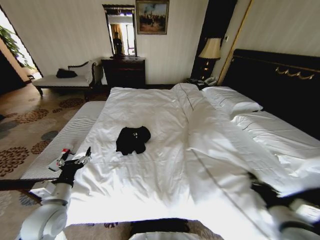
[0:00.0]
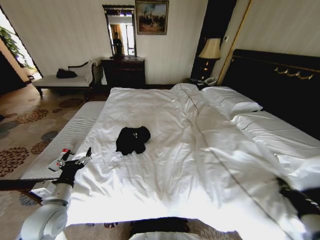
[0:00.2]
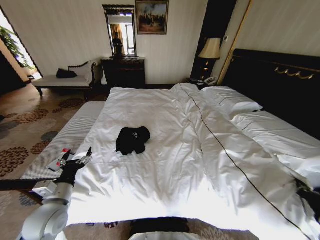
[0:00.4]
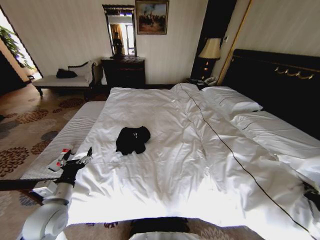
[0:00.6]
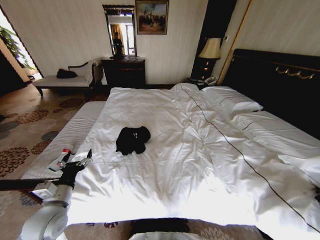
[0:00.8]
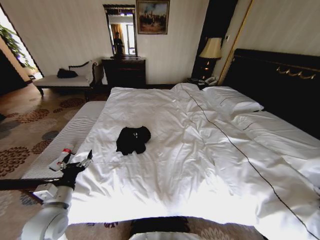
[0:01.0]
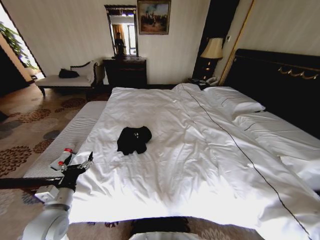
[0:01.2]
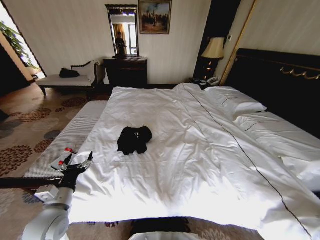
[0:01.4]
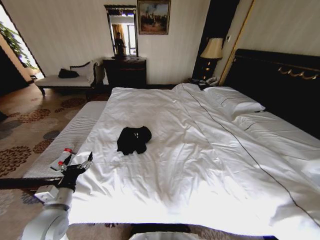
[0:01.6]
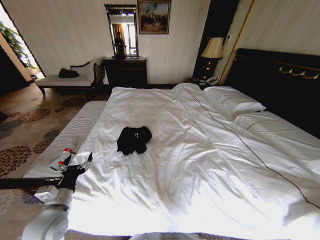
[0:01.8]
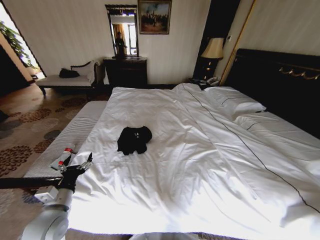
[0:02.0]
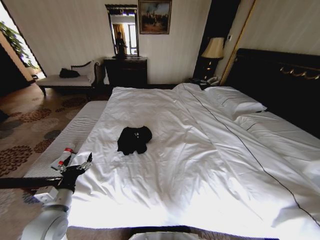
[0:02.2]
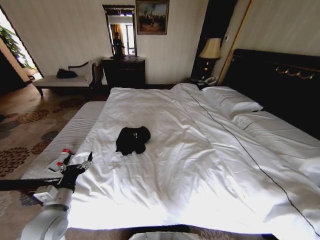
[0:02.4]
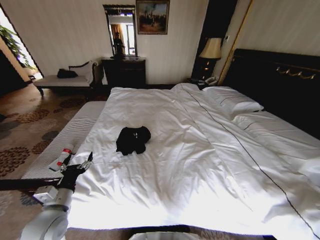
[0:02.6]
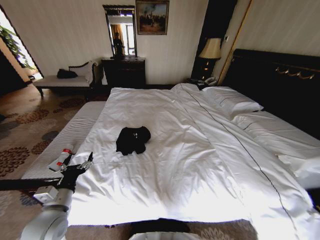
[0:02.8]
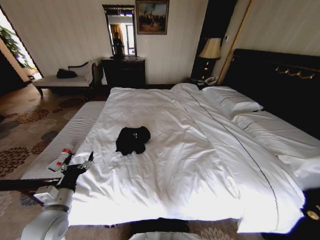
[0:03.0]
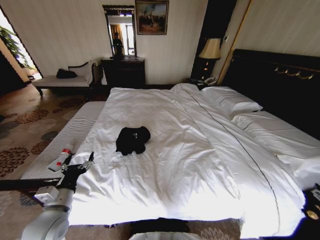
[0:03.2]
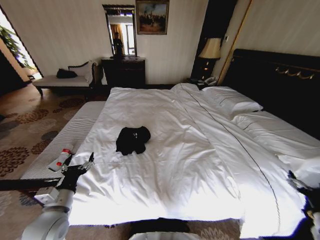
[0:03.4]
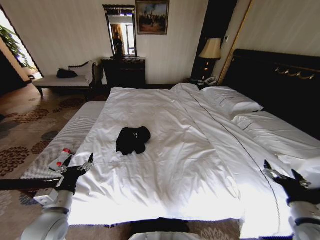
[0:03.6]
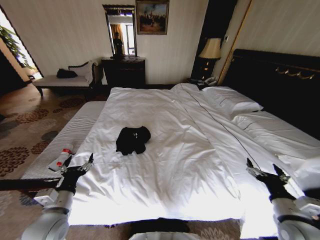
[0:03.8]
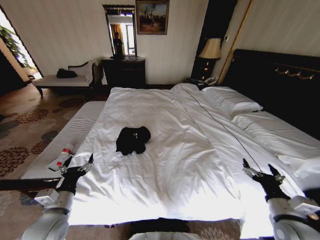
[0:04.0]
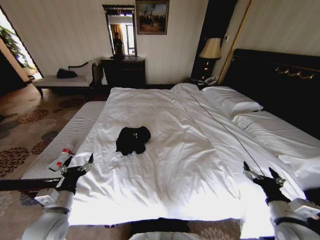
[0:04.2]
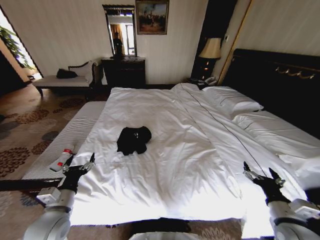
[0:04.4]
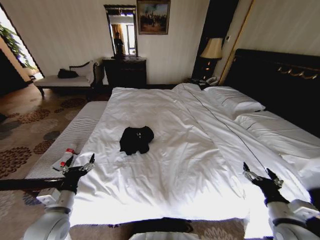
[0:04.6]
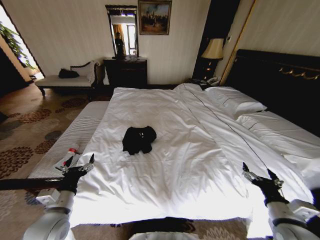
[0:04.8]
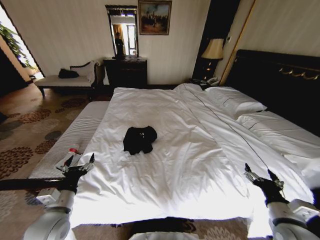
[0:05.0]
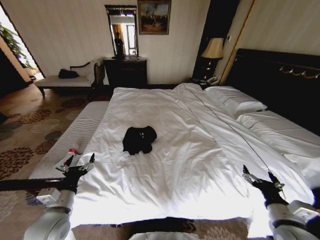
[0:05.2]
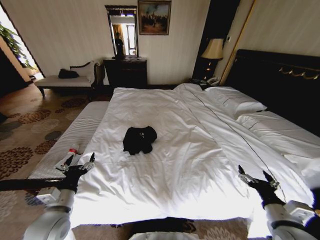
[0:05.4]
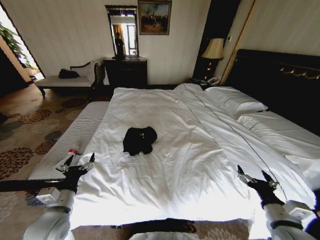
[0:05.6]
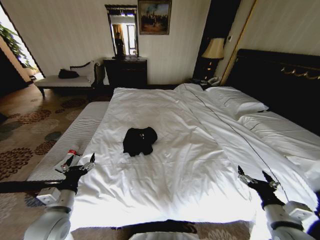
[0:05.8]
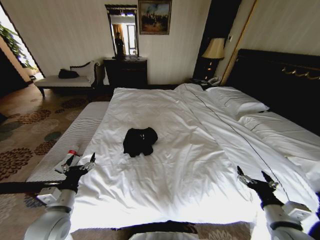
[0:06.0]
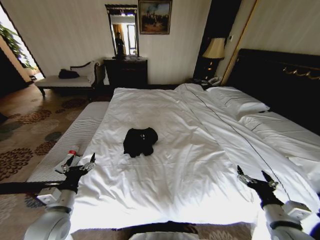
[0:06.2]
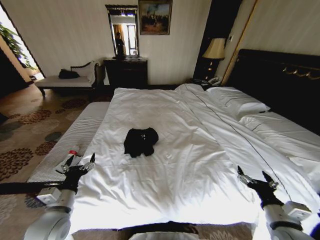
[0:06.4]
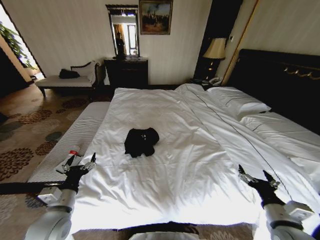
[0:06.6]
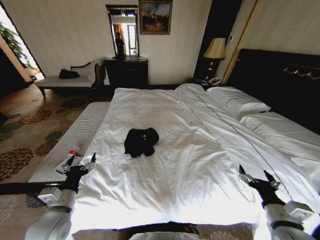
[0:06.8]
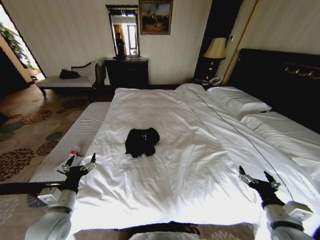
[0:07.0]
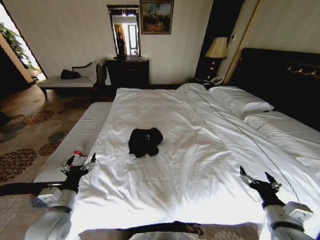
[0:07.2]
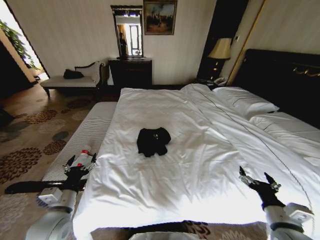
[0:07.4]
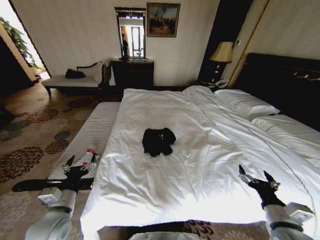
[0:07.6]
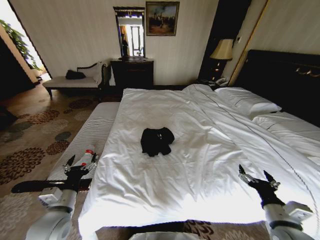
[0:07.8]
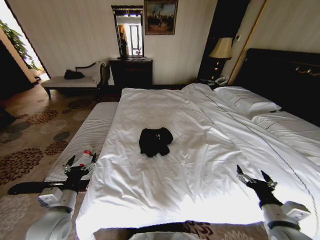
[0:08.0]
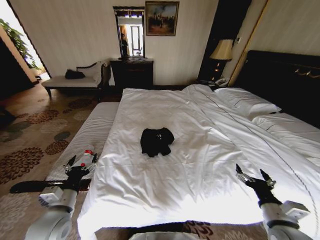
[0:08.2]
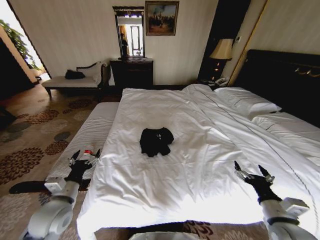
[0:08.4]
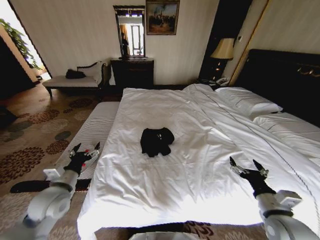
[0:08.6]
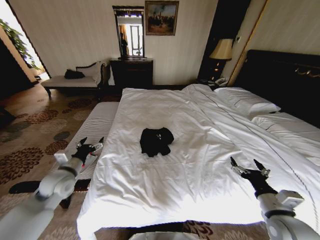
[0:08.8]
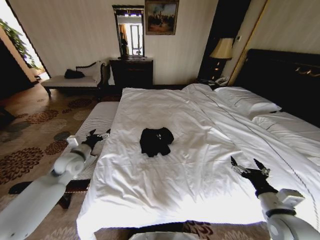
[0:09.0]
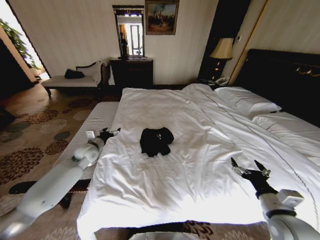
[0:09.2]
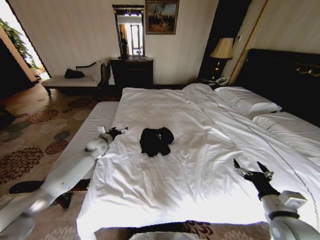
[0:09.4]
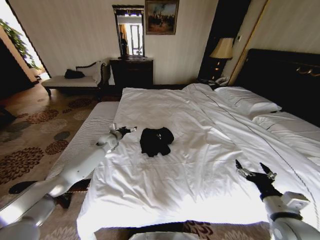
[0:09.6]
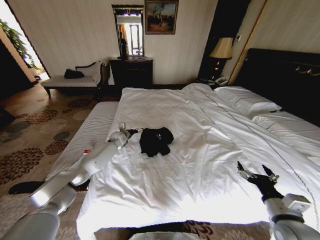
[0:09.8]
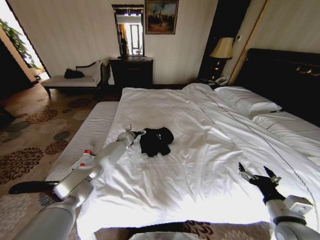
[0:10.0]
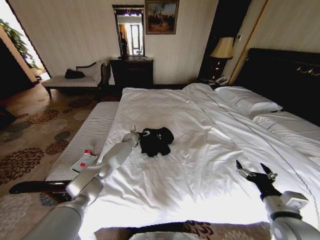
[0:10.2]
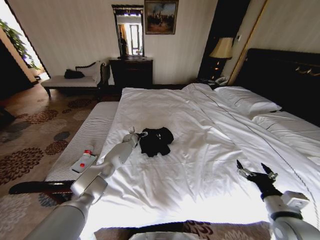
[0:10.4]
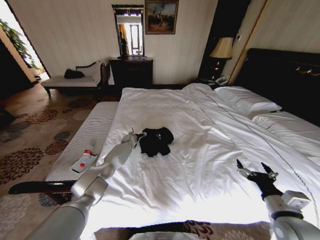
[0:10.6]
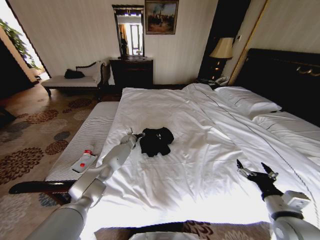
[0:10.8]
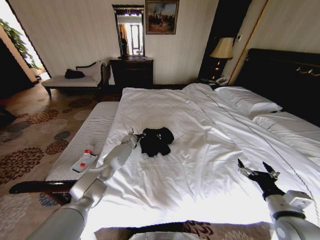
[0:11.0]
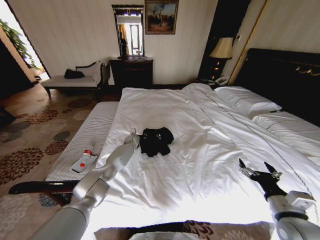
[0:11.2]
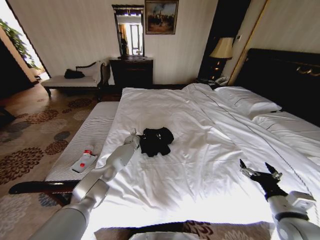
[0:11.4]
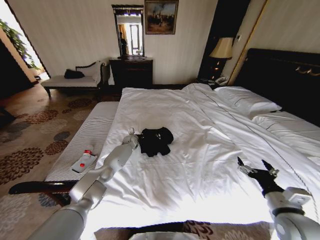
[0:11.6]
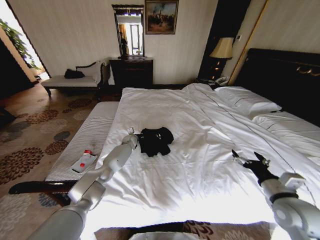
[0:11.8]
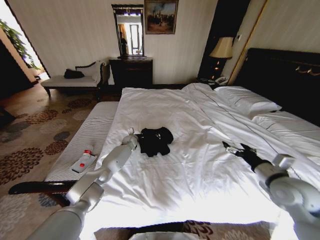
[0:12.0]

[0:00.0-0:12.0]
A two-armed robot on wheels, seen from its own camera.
Task of the whole recording: Fold the clothes on the bed.
0:00.0 to 0:01.6: The right gripper is displaced to the right by some 30 cm.
0:01.6 to 0:03.0: The right gripper opens its fingers.
0:03.0 to 0:04.4: The right gripper is displaced to the left by approximately 25 cm.
0:07.6 to 0:09.0: The left gripper heads forward, covering some 20 cm.
0:09.0 to 0:10.4: The left gripper is displaced forward, to the right and downward by some 35 cm.
0:10.4 to 0:12.0: The left gripper closes; the right gripper is displaced forward and upward by some 10 cm.

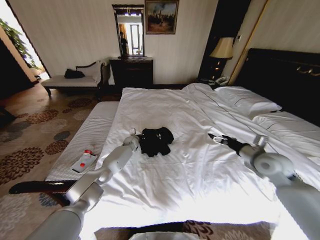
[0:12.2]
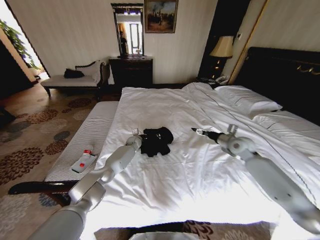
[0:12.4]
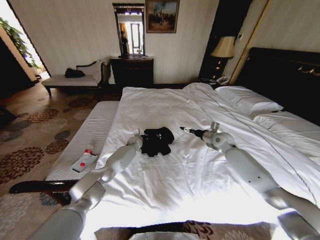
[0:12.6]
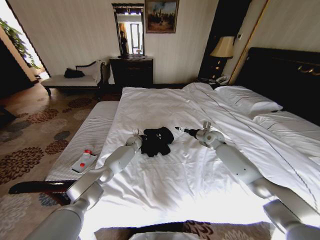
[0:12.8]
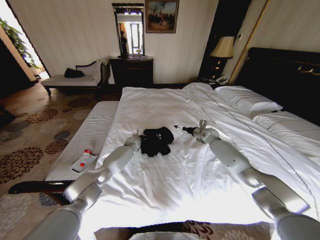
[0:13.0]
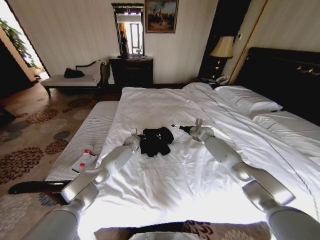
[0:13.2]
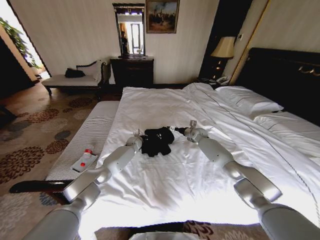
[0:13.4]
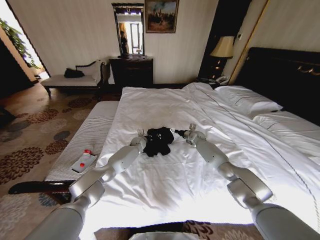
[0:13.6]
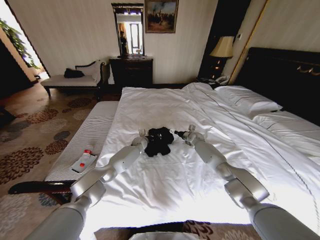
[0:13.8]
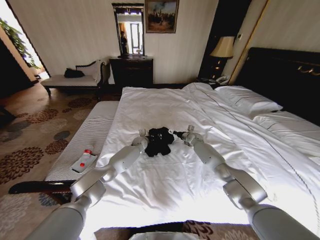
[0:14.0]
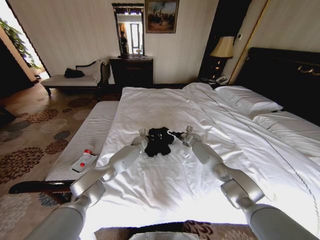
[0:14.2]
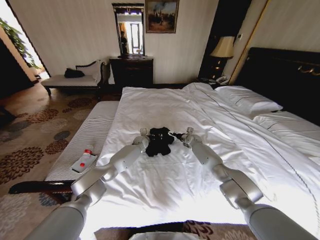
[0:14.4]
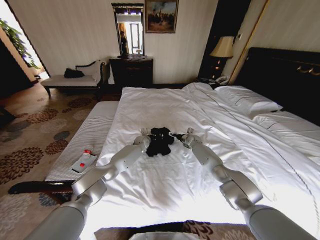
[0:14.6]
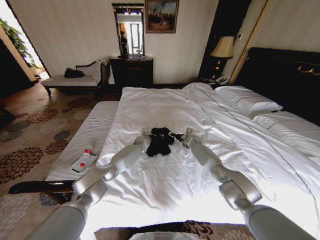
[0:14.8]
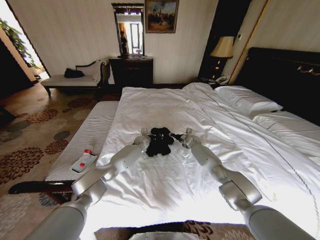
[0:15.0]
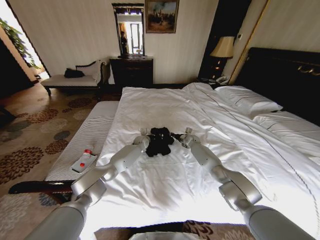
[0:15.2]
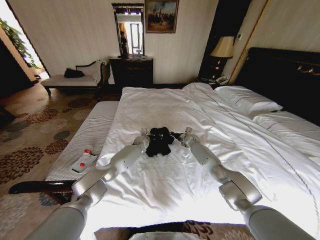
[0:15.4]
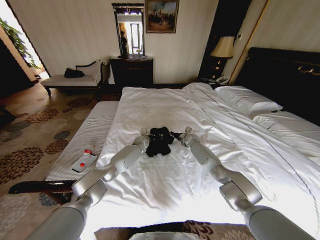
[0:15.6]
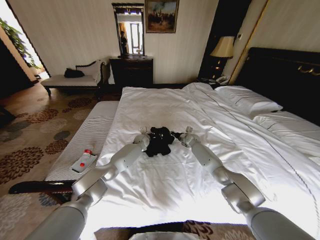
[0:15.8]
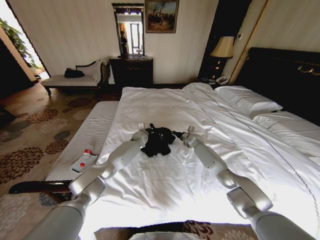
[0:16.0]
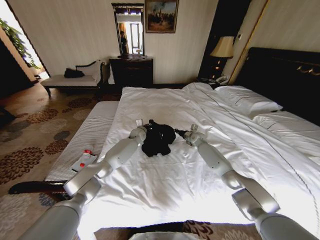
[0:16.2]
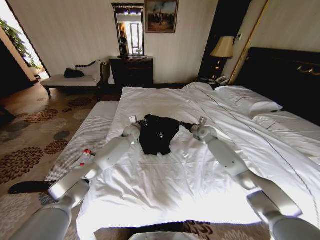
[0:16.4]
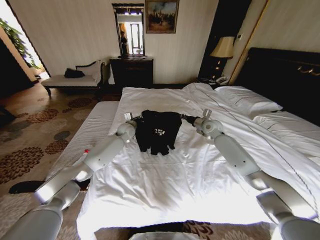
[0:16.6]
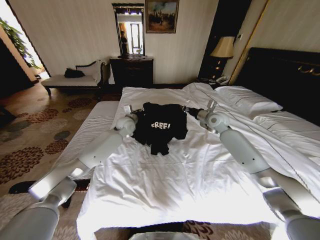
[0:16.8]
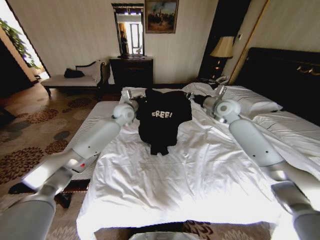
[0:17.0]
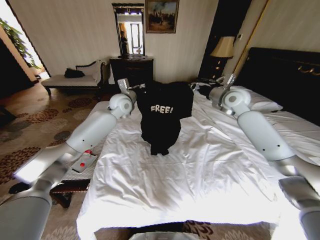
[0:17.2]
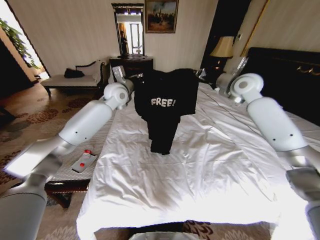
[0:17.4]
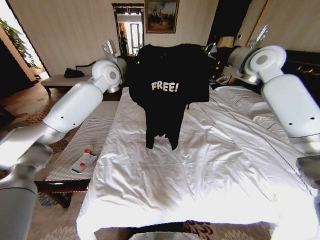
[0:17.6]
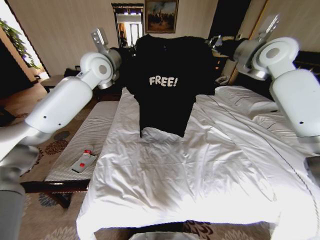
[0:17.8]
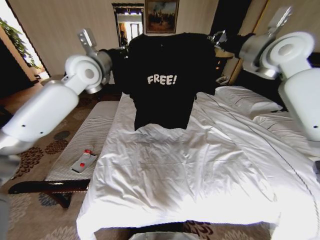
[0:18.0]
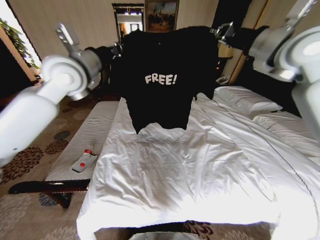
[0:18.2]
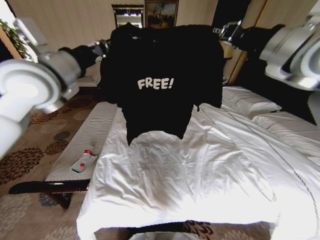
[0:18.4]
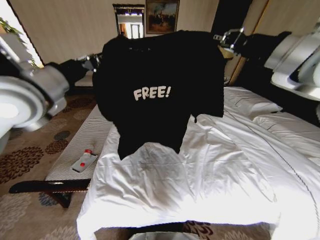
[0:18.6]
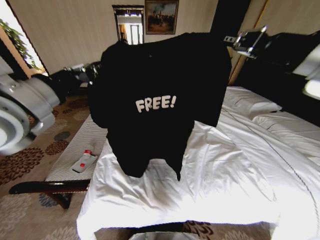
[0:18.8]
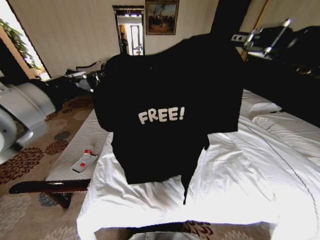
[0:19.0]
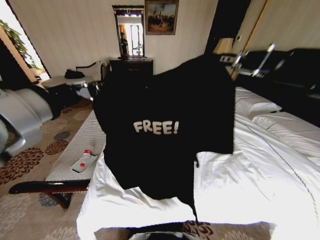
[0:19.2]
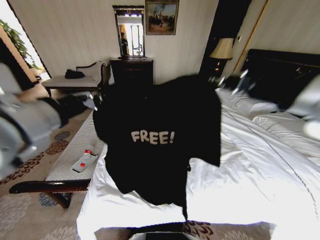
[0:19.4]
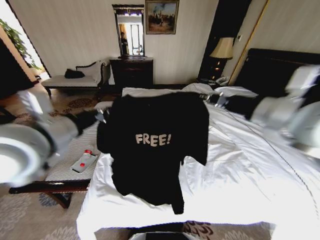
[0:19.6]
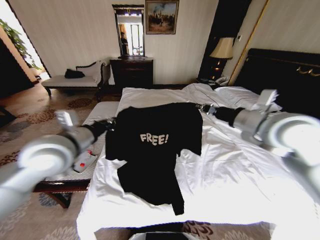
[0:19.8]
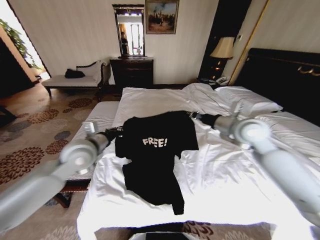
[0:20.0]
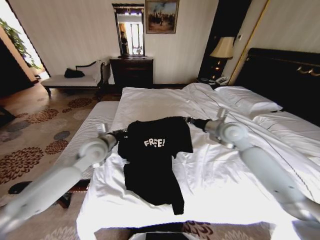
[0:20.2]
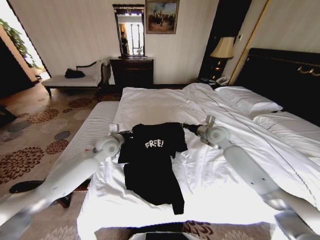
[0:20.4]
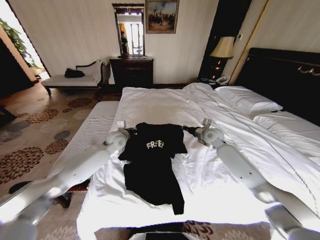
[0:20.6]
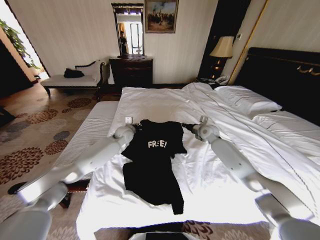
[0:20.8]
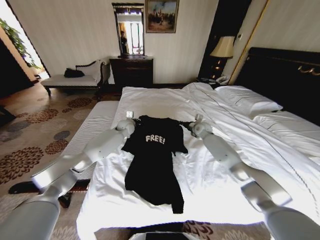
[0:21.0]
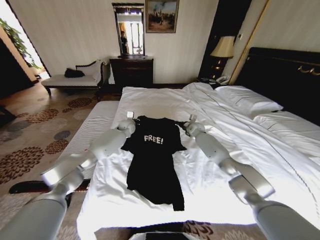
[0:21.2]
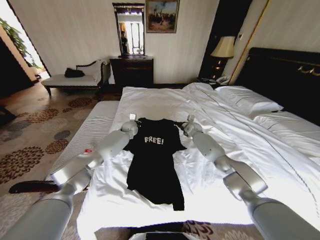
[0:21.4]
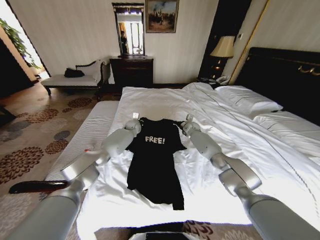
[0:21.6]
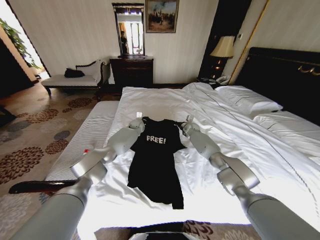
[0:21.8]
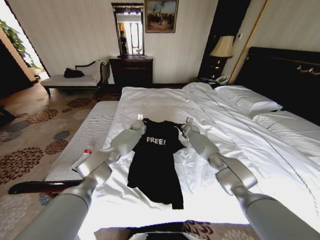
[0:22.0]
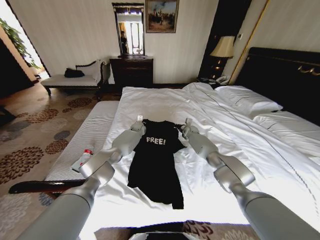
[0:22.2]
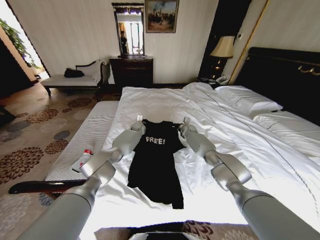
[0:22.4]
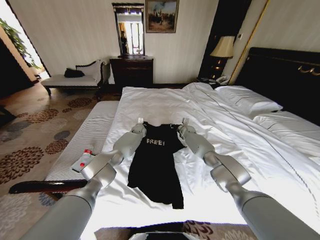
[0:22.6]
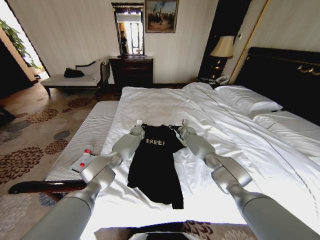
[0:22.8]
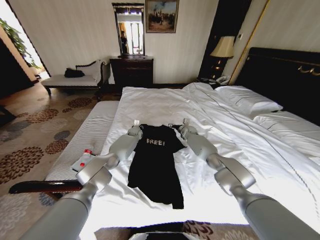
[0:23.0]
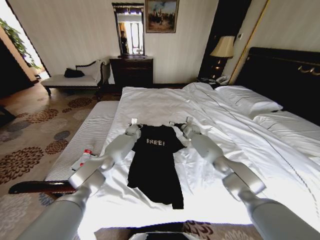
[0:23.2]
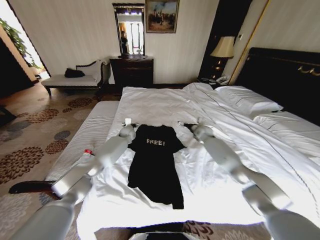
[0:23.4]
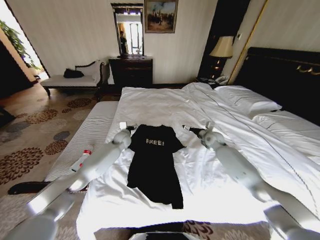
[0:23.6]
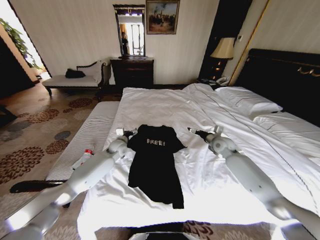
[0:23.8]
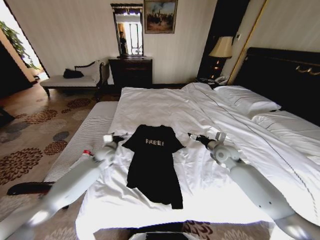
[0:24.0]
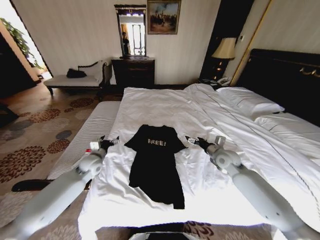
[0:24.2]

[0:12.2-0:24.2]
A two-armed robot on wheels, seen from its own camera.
Task of the whole recording: Fold the clothes on the bed.
0:12.2 to 0:13.8: The right gripper is displaced forward, downward and to the left by approximately 35 cm; the left gripper is displaced to the right by about 5 cm.
0:13.8 to 0:15.2: The right gripper closes up.
0:15.2 to 0:16.6: The left gripper heads upward and to the left, covering some 15 cm, while the right gripper moves upward, some 20 cm.
0:16.6 to 0:18.2: The right gripper moves upward, about 35 cm, while the left gripper travels upward and backward by approximately 35 cm.
0:18.2 to 0:19.8: The left gripper heads backward and downward, covering roughly 20 cm. The right gripper shifts roughly 20 cm downward and backward.
0:19.8 to 0:21.2: The two grippers go approximately 40 cm forward and downward.
0:21.2 to 0:22.6: The left gripper shifts some 10 cm downward and to the right; the right gripper travels downward by approximately 5 cm.
0:22.6 to 0:24.2: The right gripper is displaced backward by approximately 25 cm, and opens up. The left gripper shifts approximately 35 cm backward and to the left, and opens its fingers.
